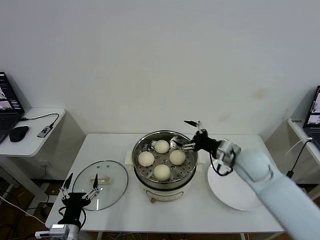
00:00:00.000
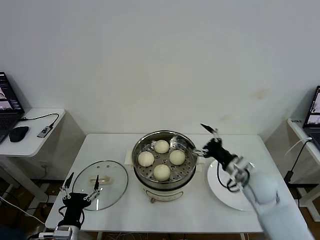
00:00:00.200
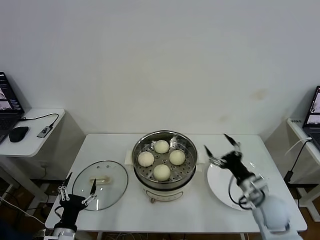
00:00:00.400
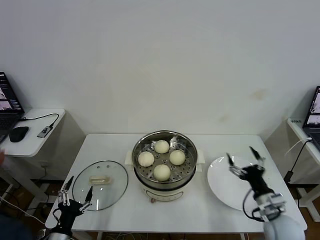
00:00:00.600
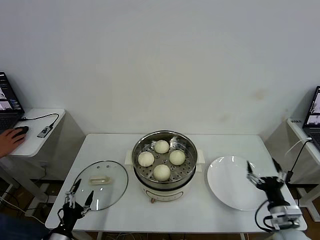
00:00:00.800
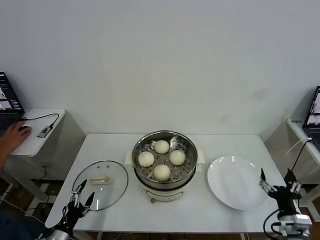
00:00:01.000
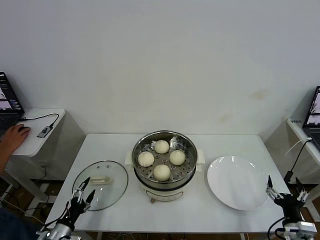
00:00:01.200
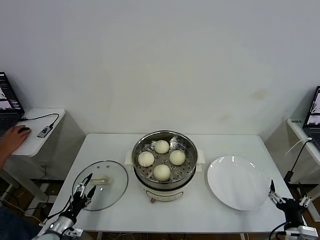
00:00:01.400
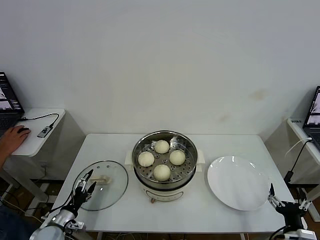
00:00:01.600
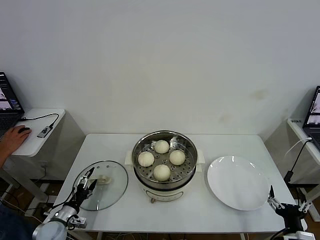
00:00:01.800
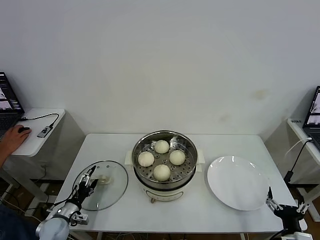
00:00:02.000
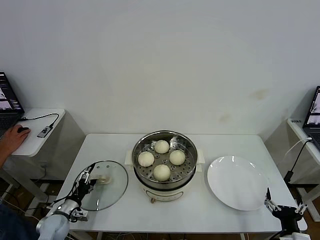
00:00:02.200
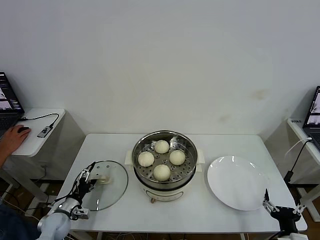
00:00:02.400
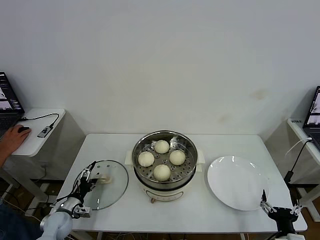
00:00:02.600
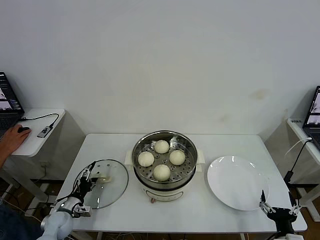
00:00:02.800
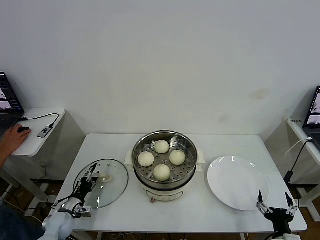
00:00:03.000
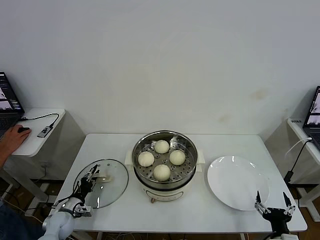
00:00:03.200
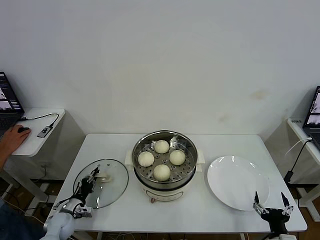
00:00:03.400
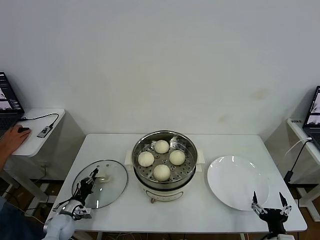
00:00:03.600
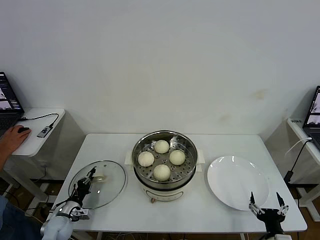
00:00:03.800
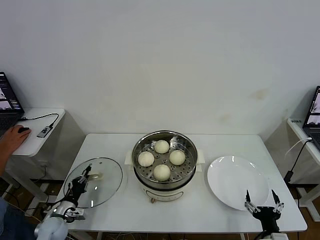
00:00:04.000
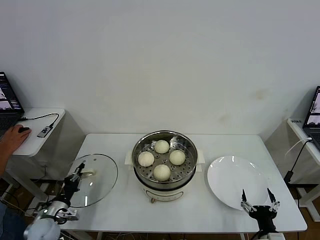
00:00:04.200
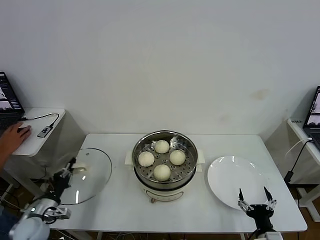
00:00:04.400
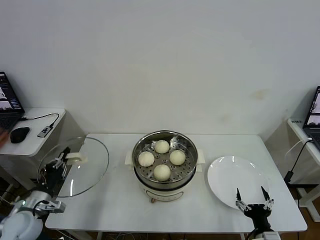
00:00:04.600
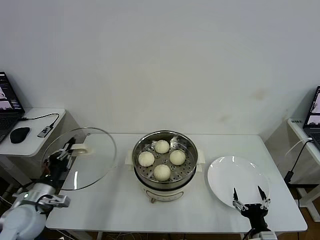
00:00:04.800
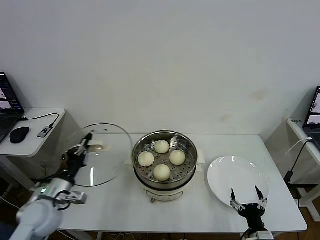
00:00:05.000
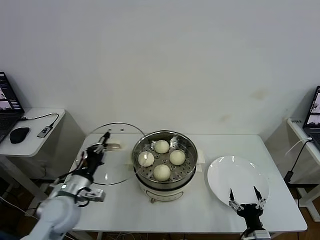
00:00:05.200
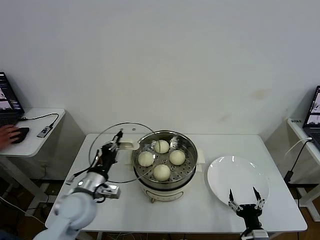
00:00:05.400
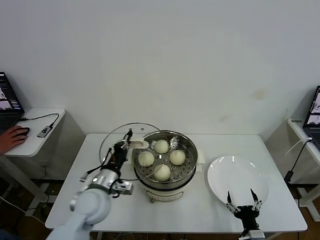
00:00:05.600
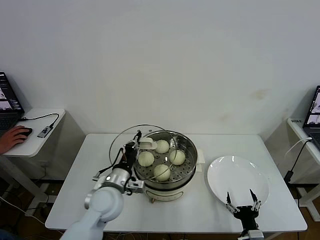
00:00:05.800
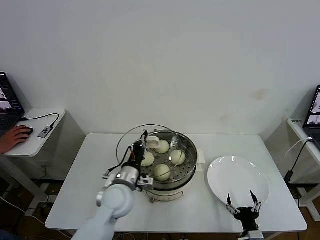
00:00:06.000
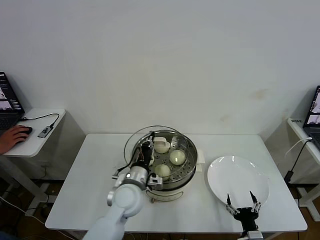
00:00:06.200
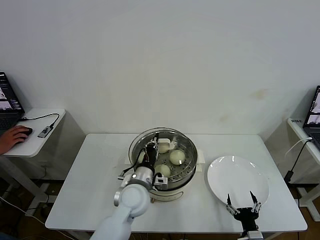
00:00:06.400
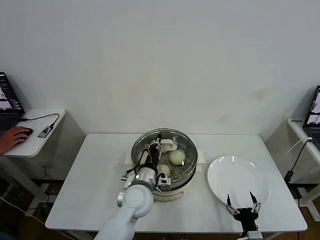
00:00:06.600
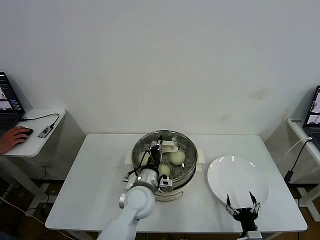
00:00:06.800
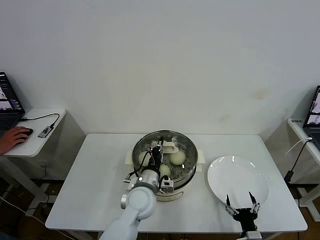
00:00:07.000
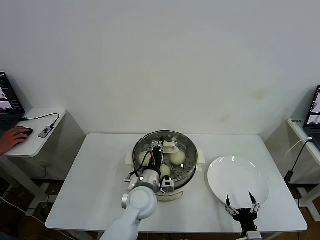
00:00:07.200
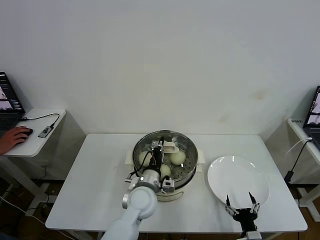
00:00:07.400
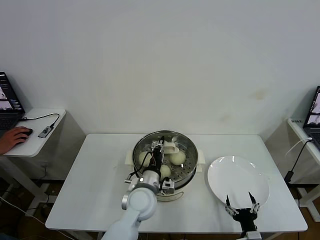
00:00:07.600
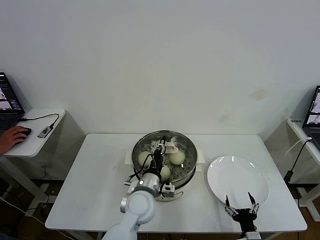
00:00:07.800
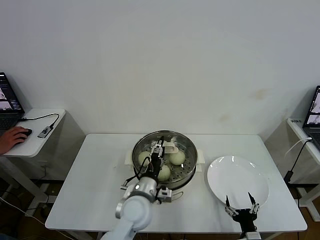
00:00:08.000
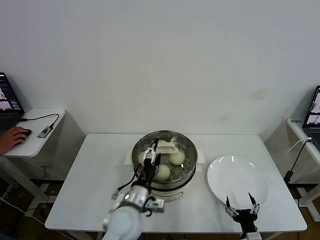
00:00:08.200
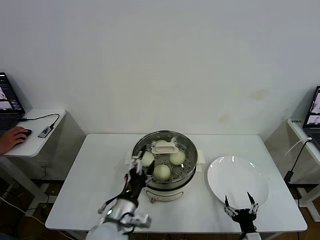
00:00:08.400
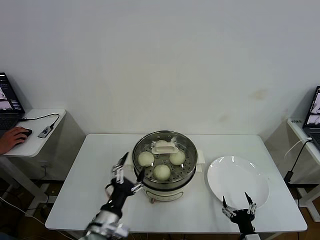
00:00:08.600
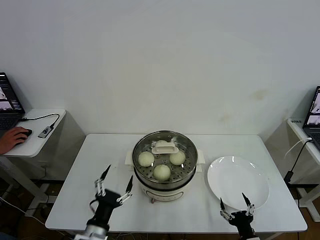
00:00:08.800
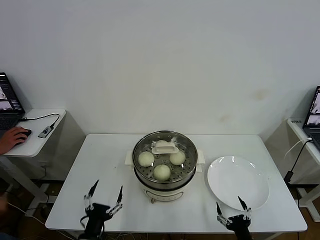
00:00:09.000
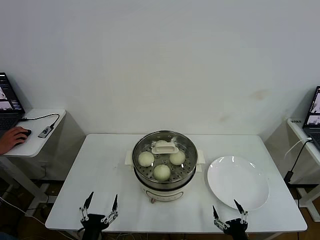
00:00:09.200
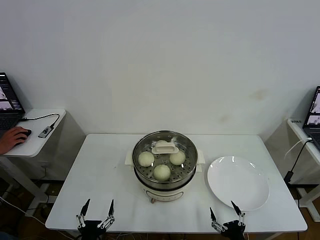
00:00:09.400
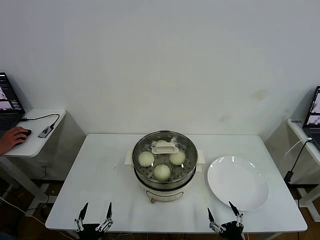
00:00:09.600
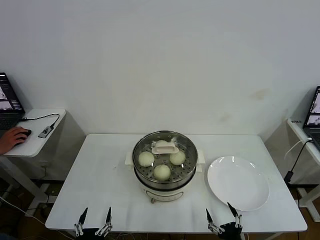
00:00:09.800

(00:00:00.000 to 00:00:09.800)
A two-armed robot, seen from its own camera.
Task of the whole recording: take steamed baozi put them in steamer then cover it.
Step, 00:00:00.000 - 00:00:03.600: Grasp the pot lid with left gripper.
Step, 00:00:03.800 - 00:00:08.000: Place the pot lid on the steamer with left gripper.
00:00:00.000 - 00:00:01.400: The right gripper goes roughly 30 cm backward, downward and to the right; the left gripper heads to the left, downward and forward, covering some 15 cm.
00:00:01.400 - 00:00:02.800: The left gripper goes about 10 cm forward.
00:00:02.800 - 00:00:04.200: The left gripper closes its fingers.
00:00:04.200 - 00:00:05.600: The left gripper moves to the right and upward, roughly 25 cm.
00:00:05.600 - 00:00:07.000: The left gripper travels to the right by roughly 15 cm.
00:00:07.000 - 00:00:08.400: The left gripper is displaced backward and to the left by about 10 cm, and opens its fingers.
00:00:08.400 - 00:00:09.800: The right gripper moves backward, some 5 cm. Meanwhile the left gripper shifts approximately 25 cm backward, downward and to the left.

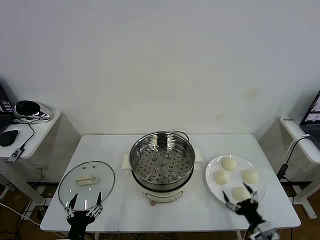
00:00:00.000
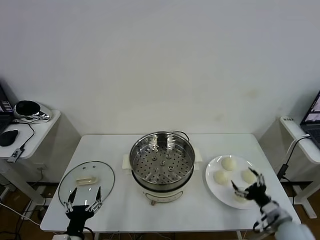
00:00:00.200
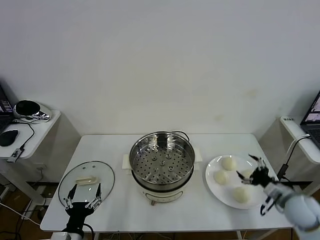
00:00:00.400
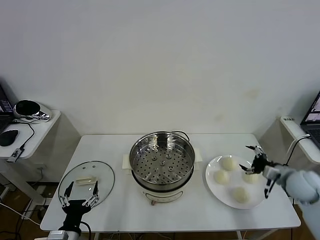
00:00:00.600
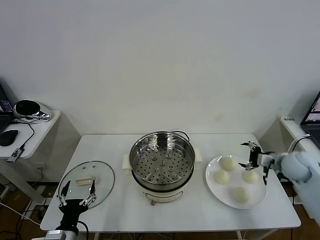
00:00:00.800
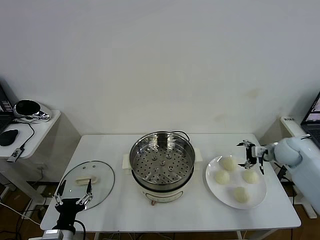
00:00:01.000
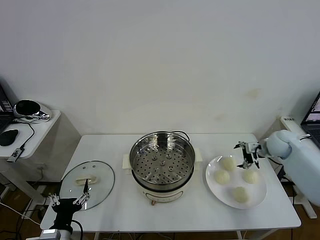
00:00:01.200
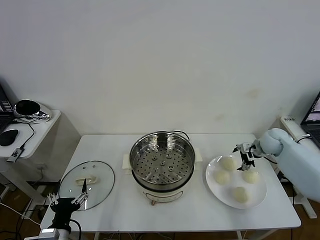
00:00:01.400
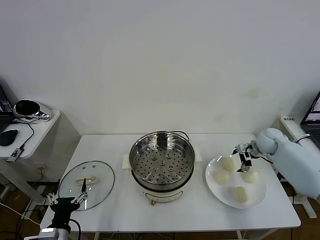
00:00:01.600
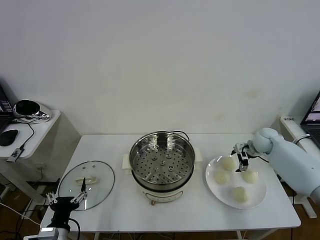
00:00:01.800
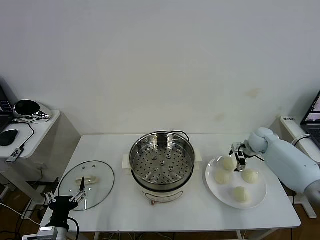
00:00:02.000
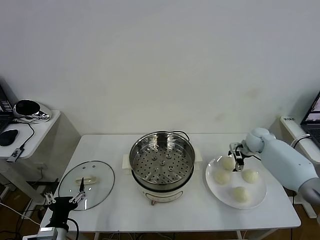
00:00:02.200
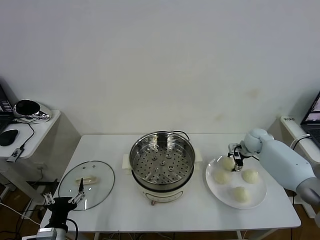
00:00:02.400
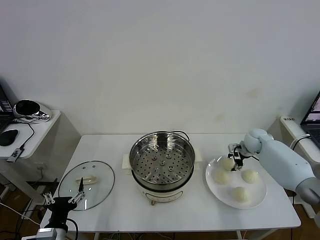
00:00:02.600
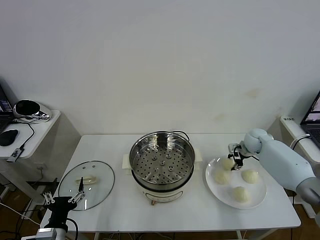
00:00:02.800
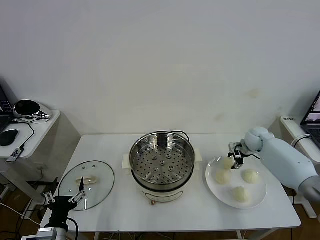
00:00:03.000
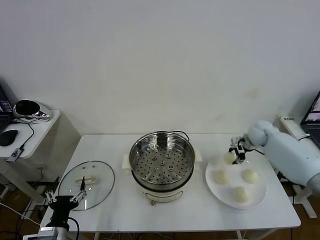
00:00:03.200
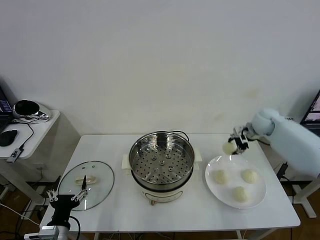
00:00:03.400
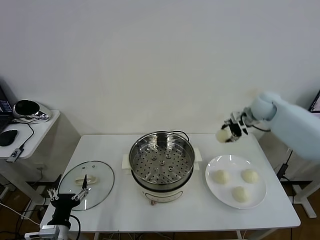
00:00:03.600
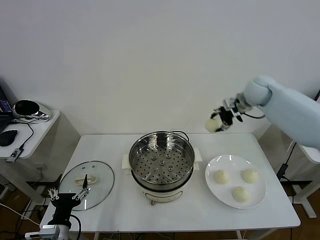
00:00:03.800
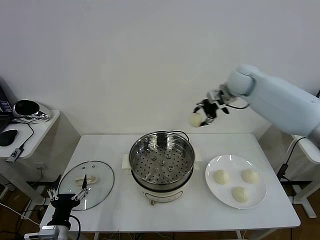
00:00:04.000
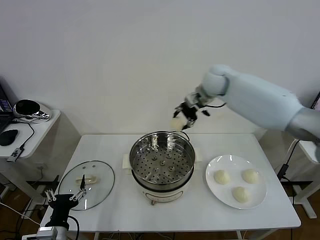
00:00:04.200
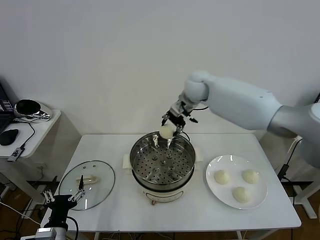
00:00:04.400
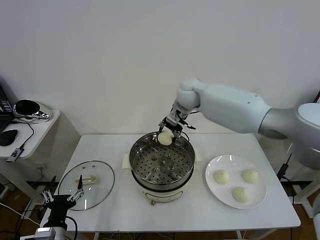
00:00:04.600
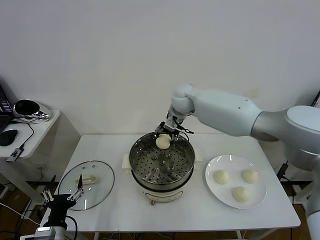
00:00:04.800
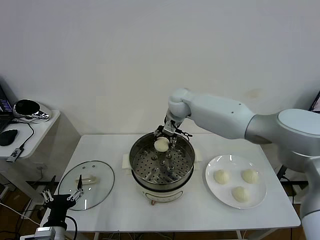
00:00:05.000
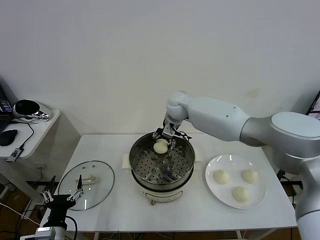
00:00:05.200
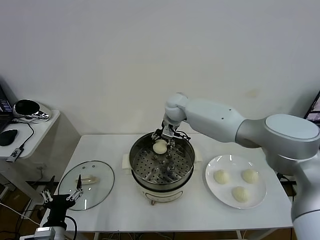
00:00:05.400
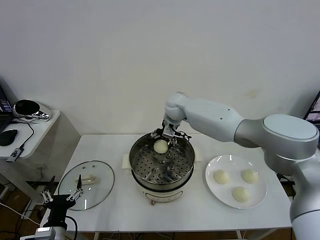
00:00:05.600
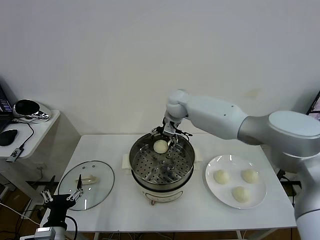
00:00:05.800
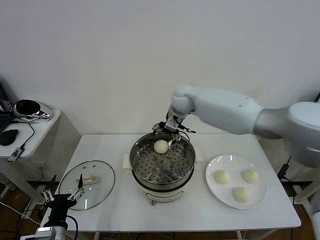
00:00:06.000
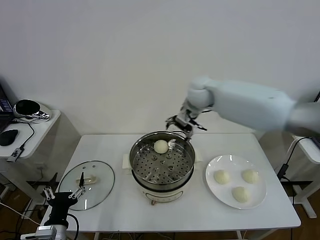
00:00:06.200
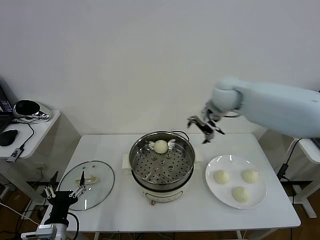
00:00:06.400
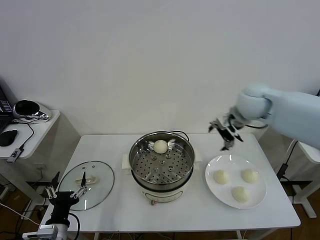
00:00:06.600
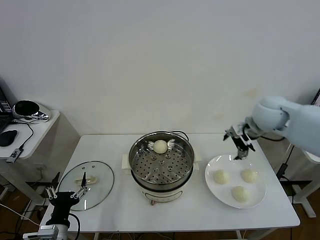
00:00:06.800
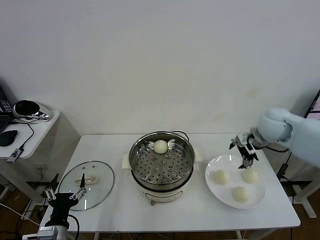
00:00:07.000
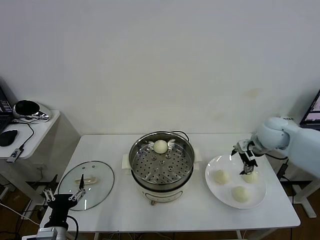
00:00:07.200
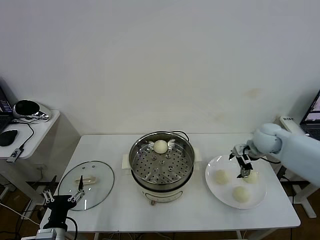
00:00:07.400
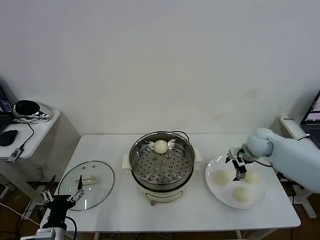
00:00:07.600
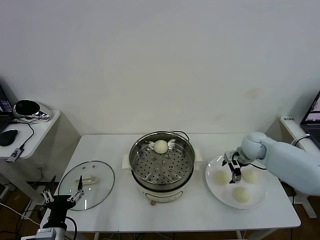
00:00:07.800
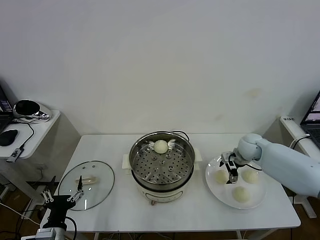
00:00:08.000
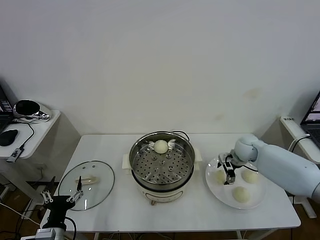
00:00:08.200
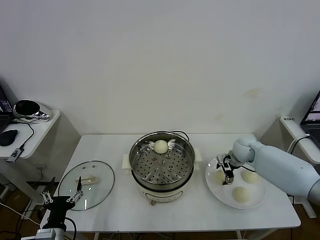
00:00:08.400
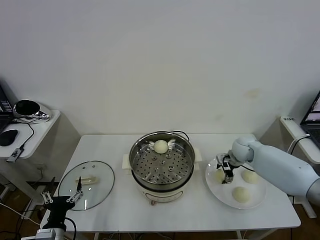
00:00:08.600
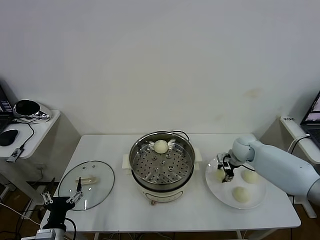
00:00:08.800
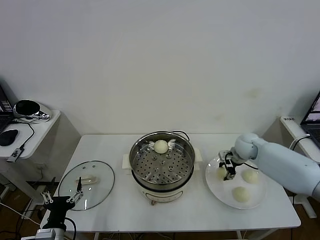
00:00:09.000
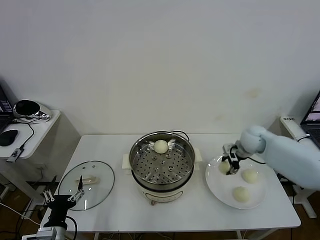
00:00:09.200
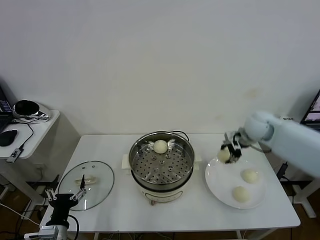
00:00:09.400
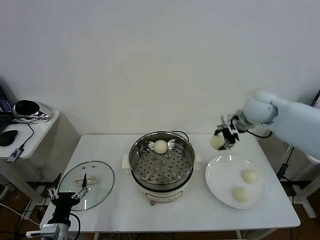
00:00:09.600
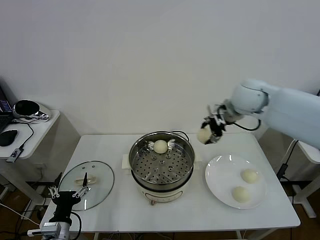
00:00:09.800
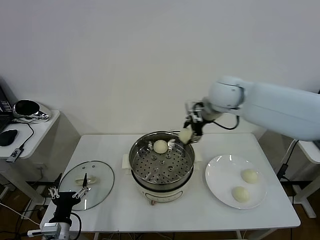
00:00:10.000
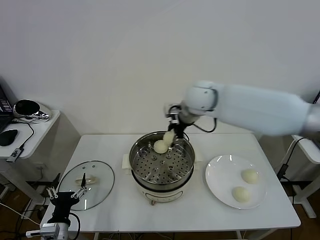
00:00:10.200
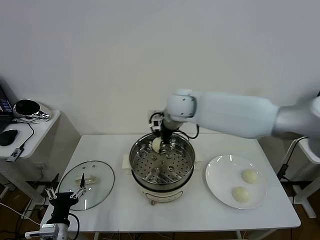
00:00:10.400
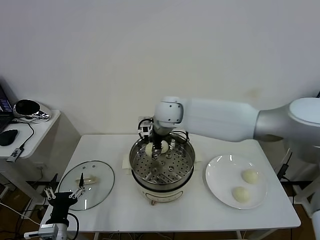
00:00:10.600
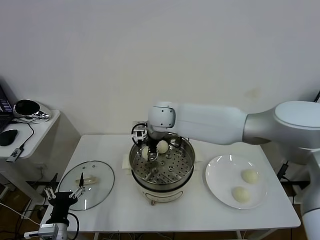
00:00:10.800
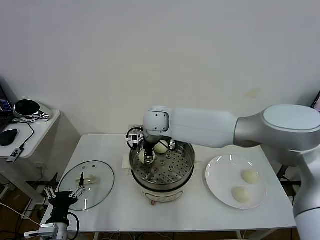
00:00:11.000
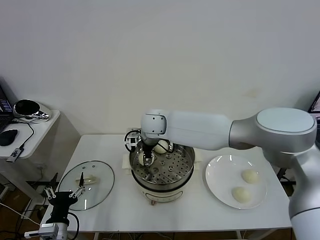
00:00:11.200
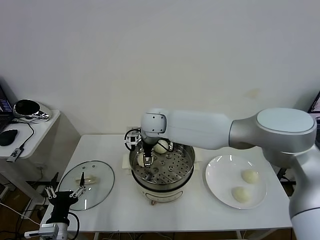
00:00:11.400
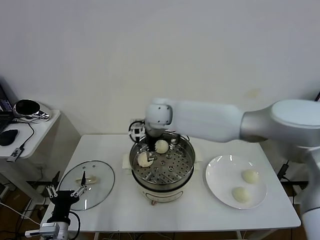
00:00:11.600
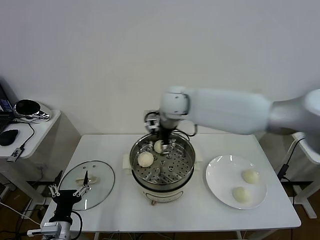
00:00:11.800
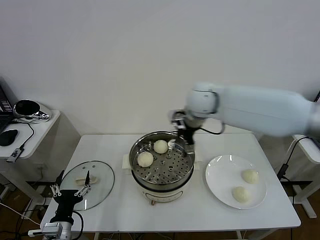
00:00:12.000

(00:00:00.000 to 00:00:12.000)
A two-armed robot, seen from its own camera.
Task of the whole recording: take steamed baozi put them in steamer then cover it.
Step, 00:00:00.000 - 00:00:02.800: Grasp the baozi in the plate with right gripper.
Step, 00:00:03.000 - 00:00:05.600: Place the baozi on the steamer with right gripper.
Step, 00:00:06.000 - 00:00:08.800: Grasp the baozi in the plate with right gripper.
Step, 00:00:09.000 - 00:00:11.400: Place the baozi on the steamer with right gripper.
00:00:01.600 - 00:00:03.000: The right gripper closes up.
00:00:03.000 - 00:00:04.400: The right gripper goes approximately 35 cm to the left and upward.
00:00:04.400 - 00:00:06.000: The right gripper goes downward and returns, some 10 cm each way, and opens.
00:00:06.000 - 00:00:07.600: The right gripper heads to the right and downward, covering about 30 cm.
00:00:07.600 - 00:00:09.000: The right gripper closes.
00:00:09.000 - 00:00:10.400: The right gripper shifts roughly 35 cm to the left and upward.
00:00:10.400 - 00:00:12.000: The right gripper heads to the right, covering some 10 cm, and opens up.
